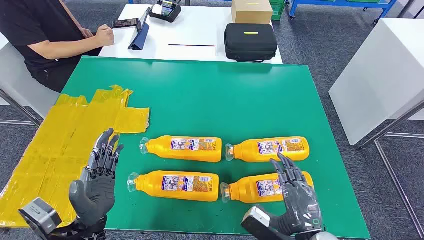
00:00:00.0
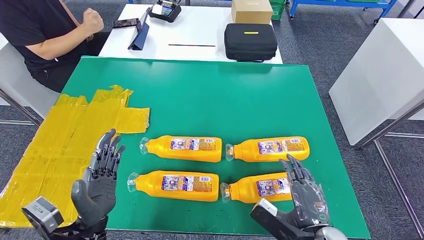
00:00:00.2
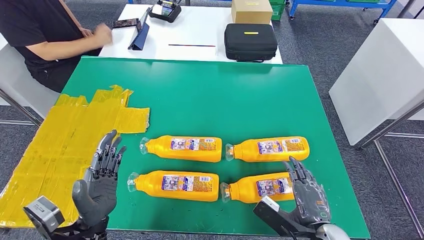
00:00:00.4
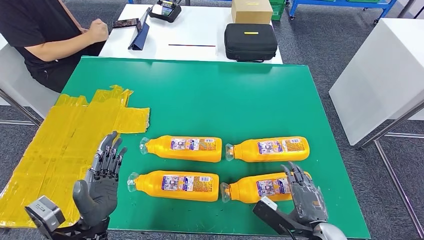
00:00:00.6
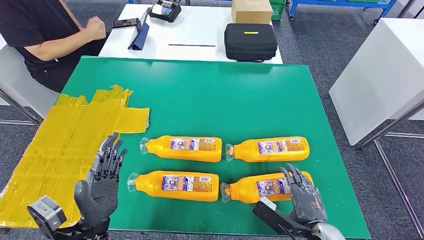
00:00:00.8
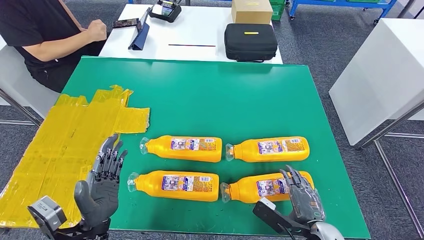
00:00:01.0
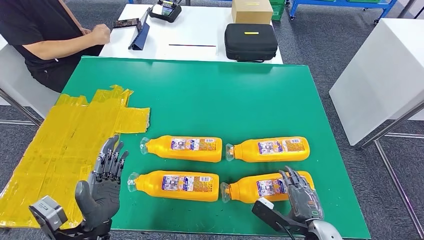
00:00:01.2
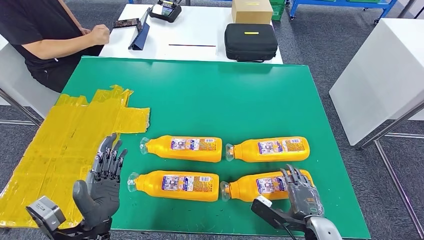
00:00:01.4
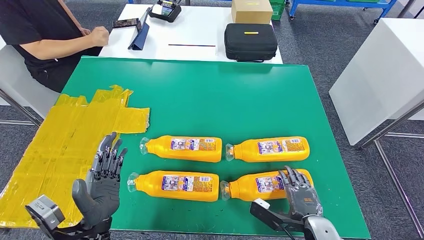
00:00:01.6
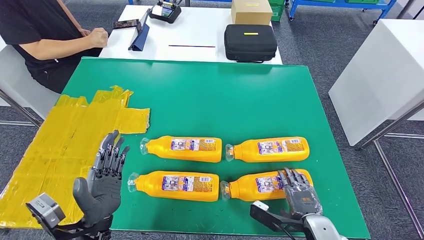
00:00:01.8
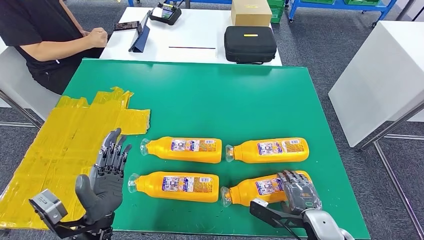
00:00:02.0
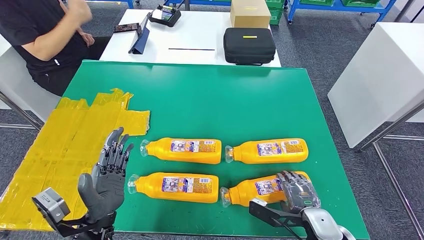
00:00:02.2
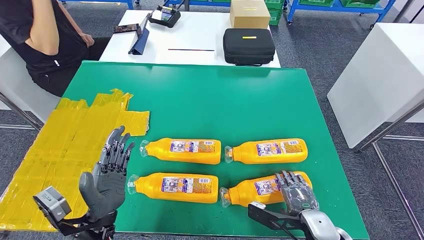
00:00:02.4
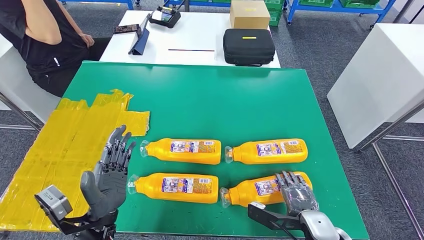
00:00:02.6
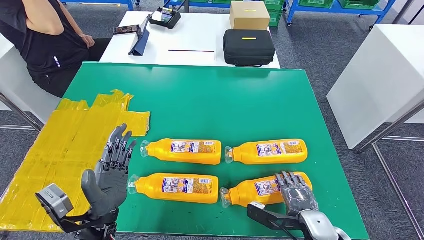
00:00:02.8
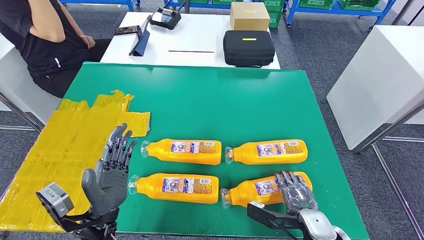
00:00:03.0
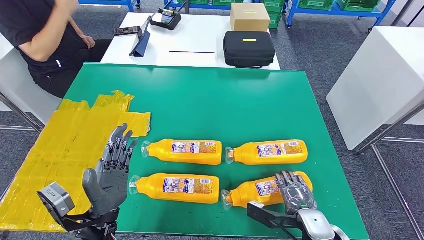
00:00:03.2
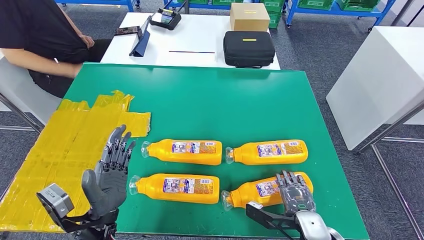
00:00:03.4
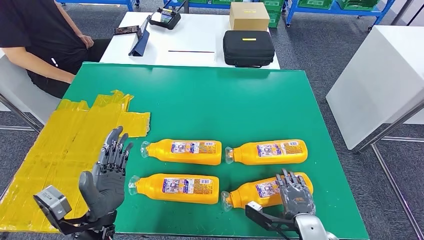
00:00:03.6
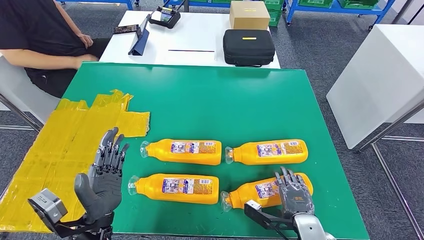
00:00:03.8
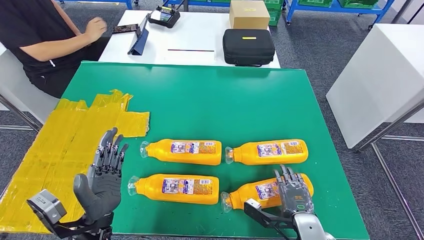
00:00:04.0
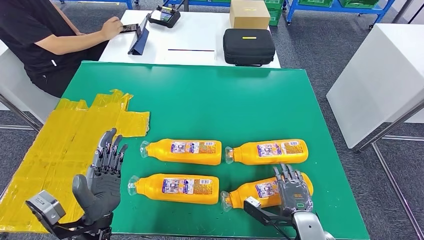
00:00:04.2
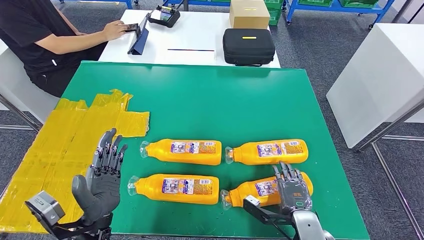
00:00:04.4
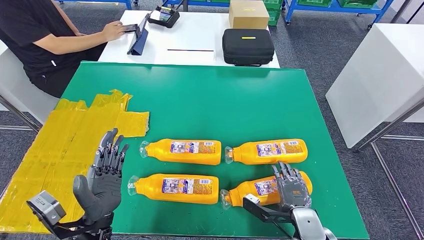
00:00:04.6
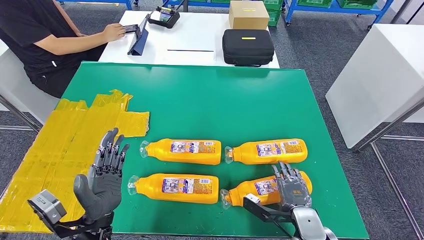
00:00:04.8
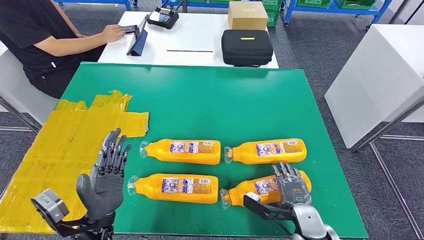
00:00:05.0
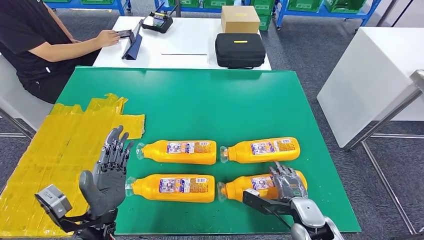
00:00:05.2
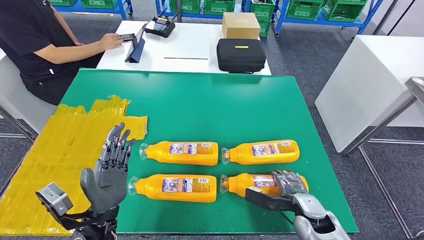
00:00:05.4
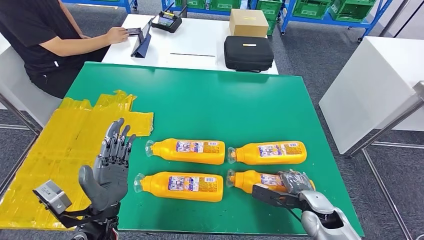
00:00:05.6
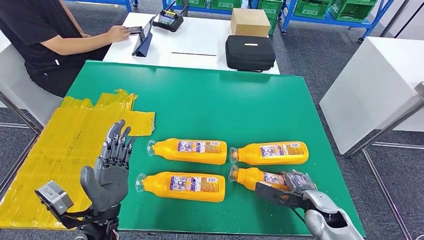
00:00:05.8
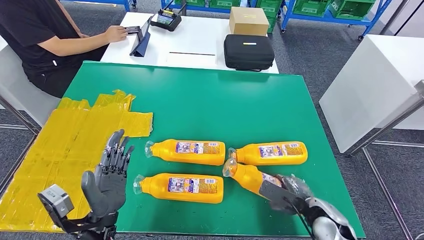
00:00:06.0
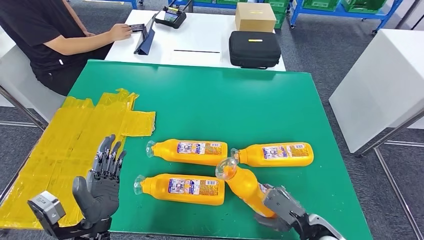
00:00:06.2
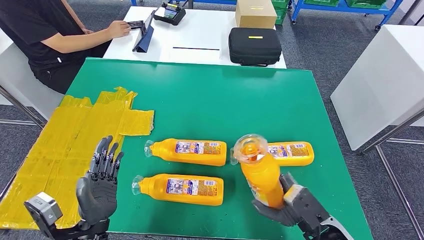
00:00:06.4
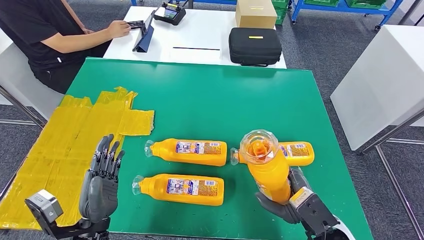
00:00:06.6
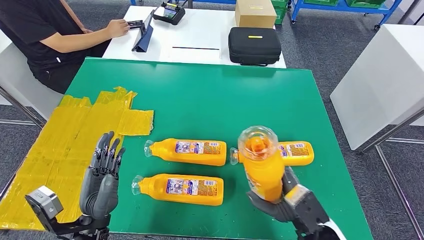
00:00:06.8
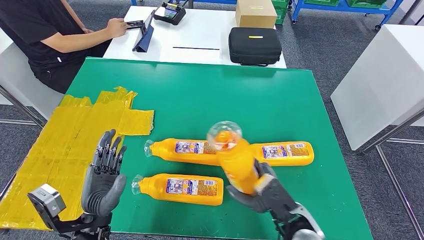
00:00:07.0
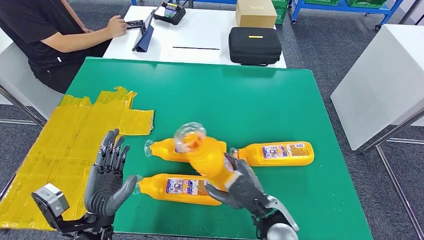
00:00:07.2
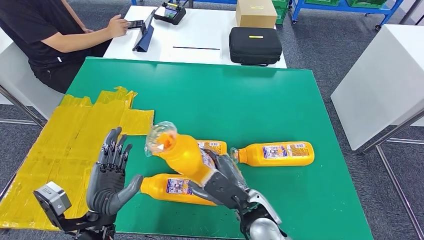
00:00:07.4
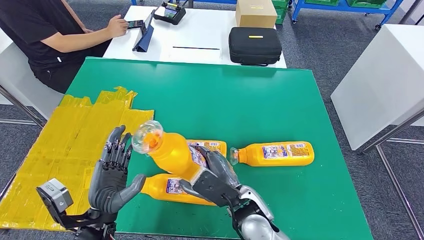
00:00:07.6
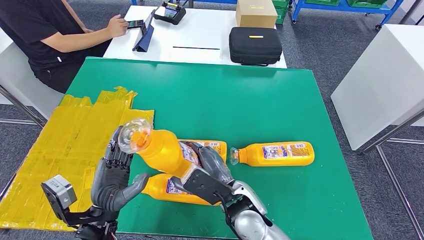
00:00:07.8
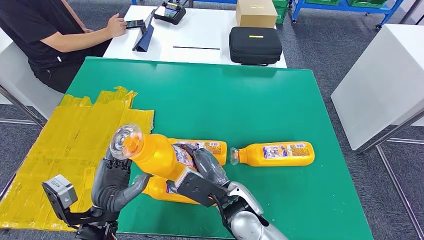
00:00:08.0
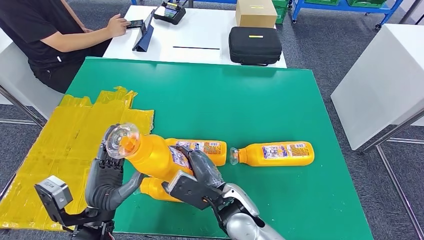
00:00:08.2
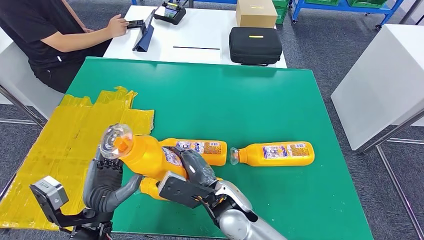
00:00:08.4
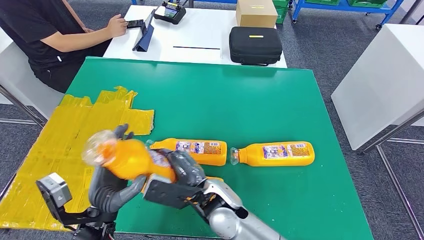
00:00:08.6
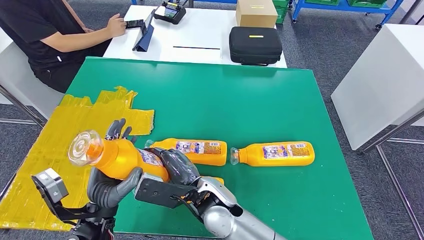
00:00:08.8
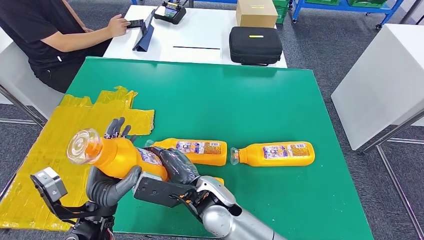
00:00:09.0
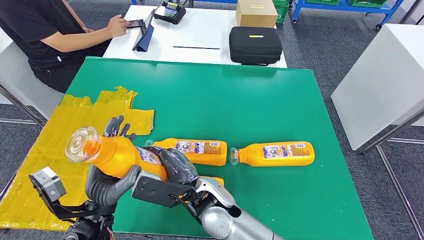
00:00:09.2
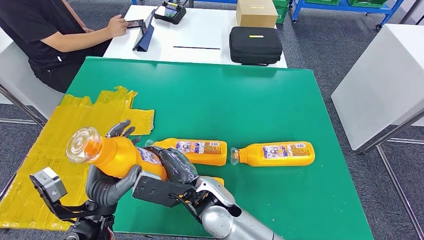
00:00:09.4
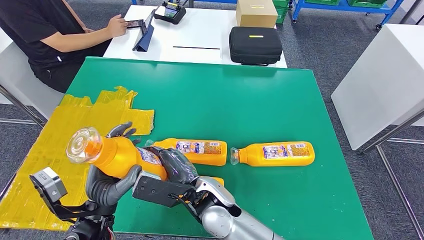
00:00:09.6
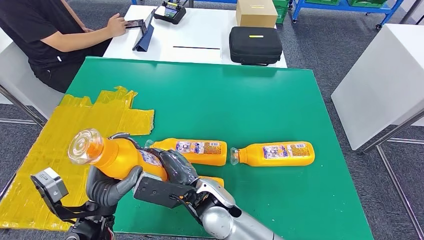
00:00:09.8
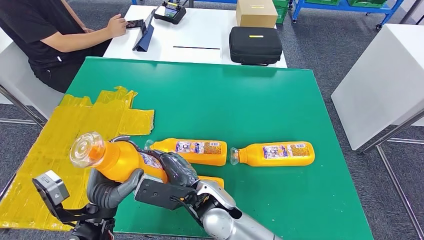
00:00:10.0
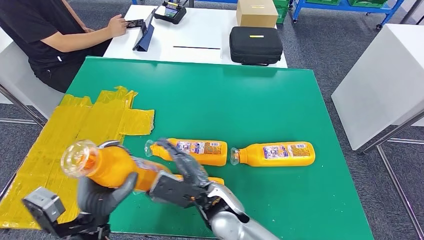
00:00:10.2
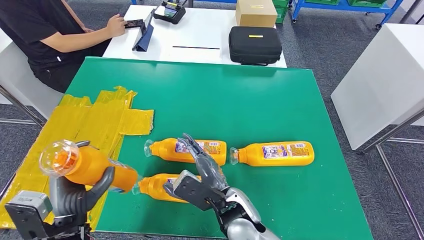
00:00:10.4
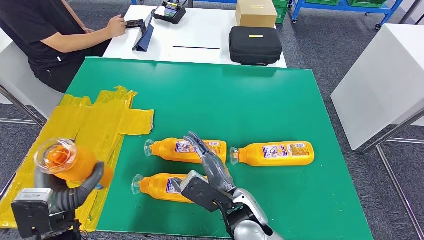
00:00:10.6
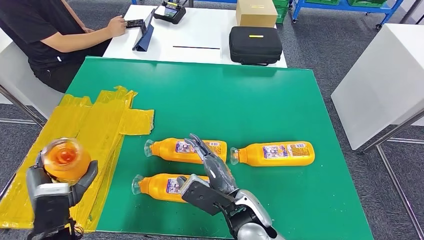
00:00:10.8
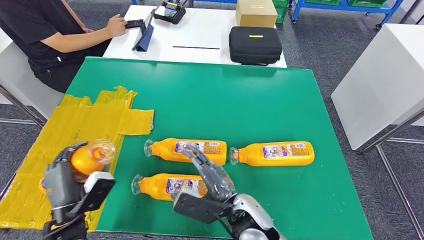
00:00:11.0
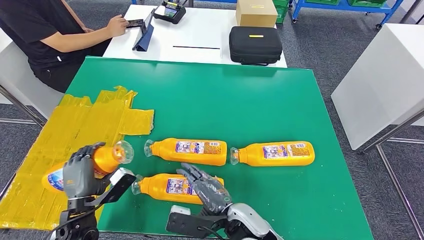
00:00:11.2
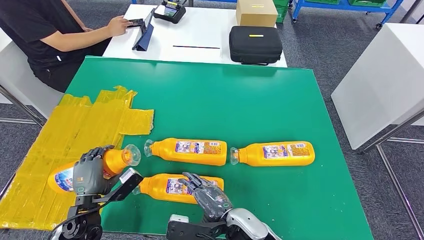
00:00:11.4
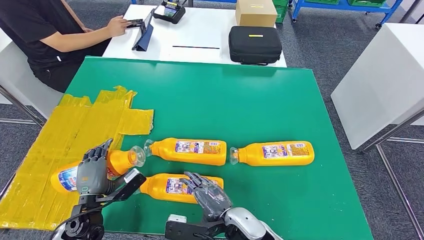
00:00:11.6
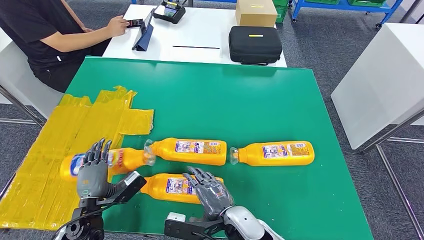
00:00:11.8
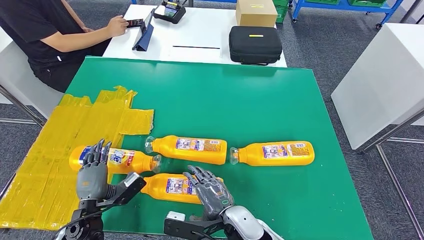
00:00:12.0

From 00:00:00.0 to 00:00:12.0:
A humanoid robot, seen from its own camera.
Step, from 00:00:00.0 to 00:00:06.6: Take the fast-moving consumer goods bottle from the table.
From 00:00:03.0 to 00:00:04.4: The hands move only a little.
From 00:00:07.6 to 00:00:09.0: The right hand heads to the left, covering about 10 cm.
From 00:00:09.0 to 00:00:10.4: The right hand shifts about 5 cm to the right, while the left hand changes place by some 5 cm.
From 00:00:10.4 to 00:00:12.0: The left hand is displaced downward by roughly 10 cm.

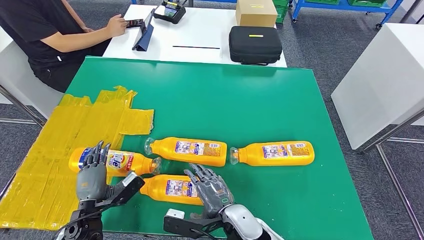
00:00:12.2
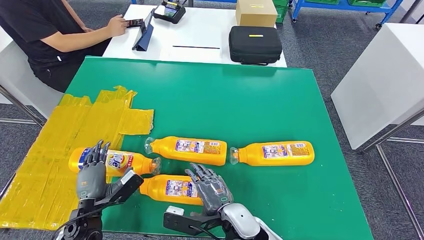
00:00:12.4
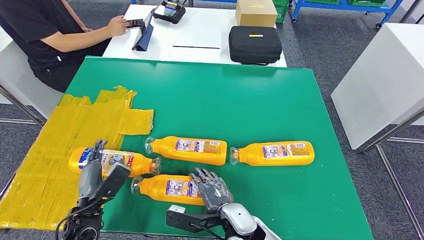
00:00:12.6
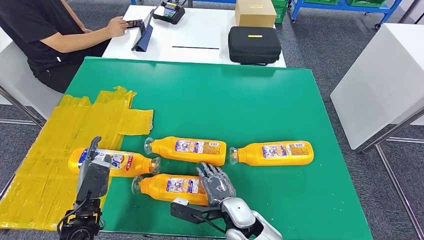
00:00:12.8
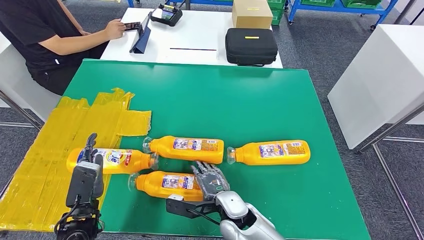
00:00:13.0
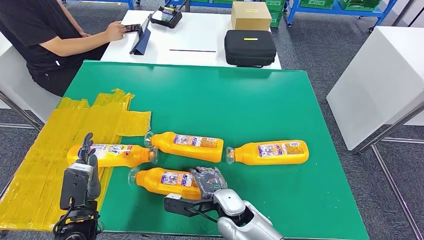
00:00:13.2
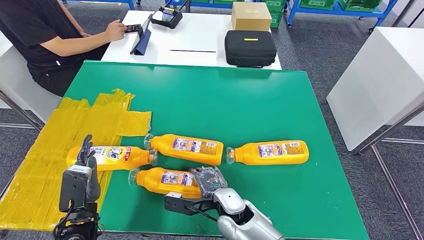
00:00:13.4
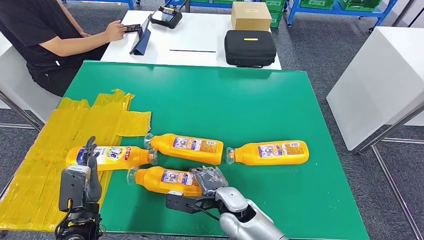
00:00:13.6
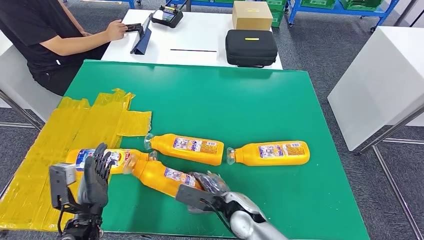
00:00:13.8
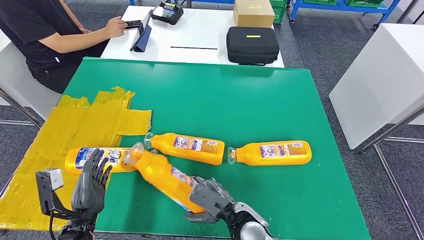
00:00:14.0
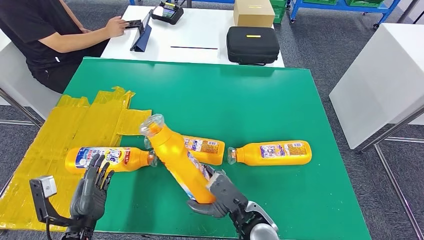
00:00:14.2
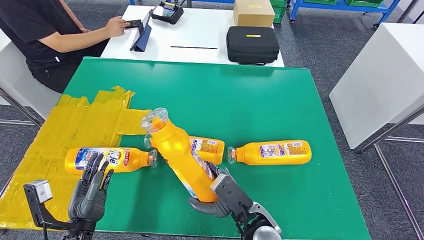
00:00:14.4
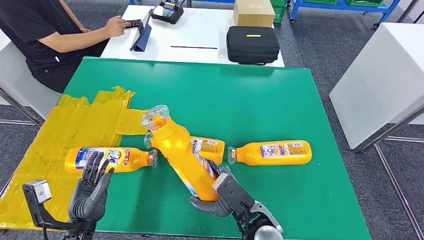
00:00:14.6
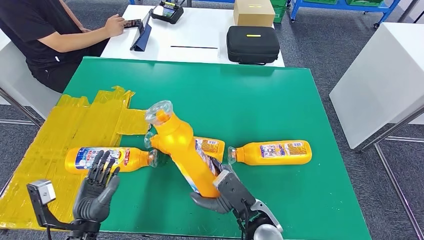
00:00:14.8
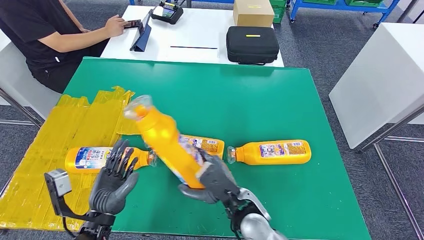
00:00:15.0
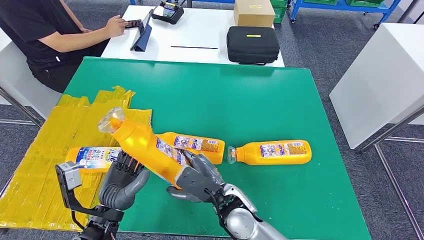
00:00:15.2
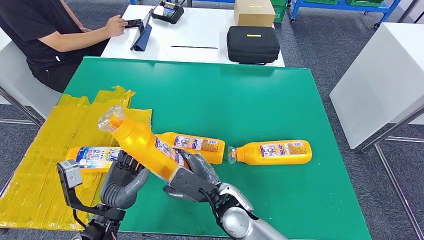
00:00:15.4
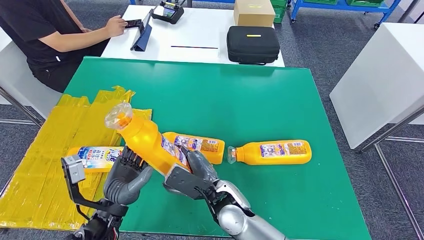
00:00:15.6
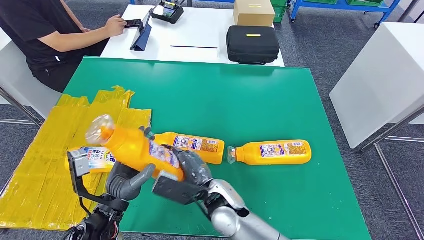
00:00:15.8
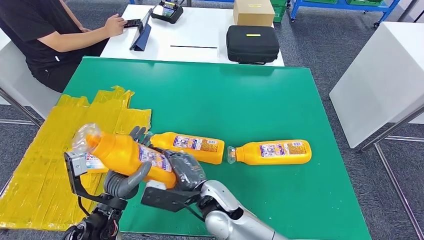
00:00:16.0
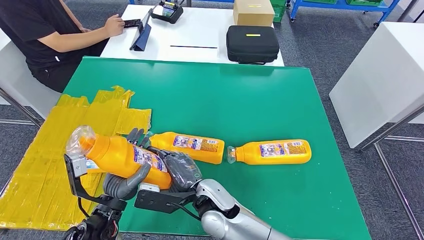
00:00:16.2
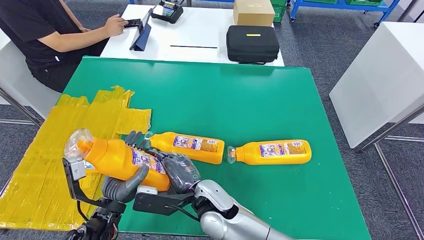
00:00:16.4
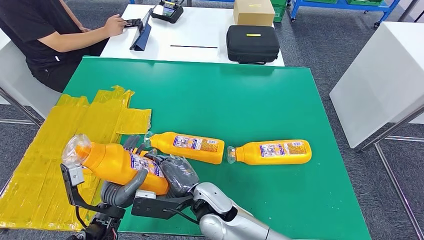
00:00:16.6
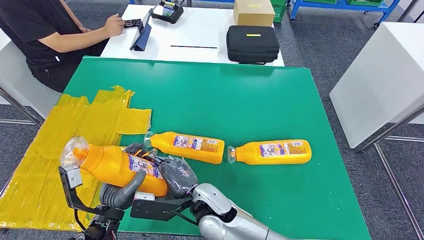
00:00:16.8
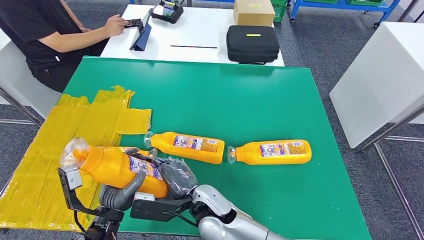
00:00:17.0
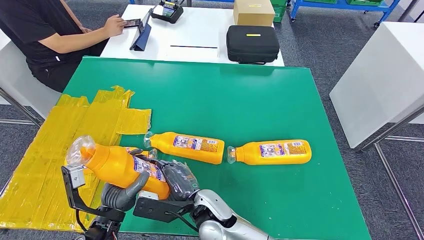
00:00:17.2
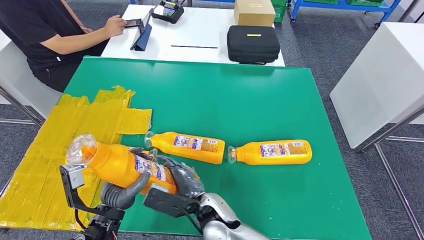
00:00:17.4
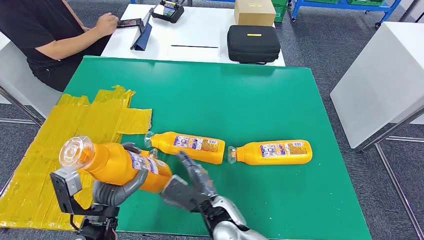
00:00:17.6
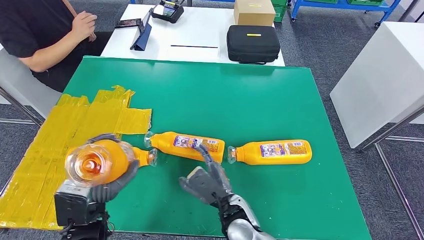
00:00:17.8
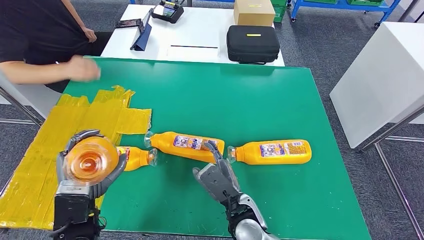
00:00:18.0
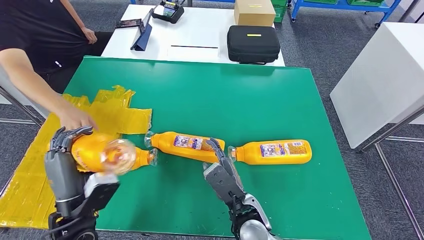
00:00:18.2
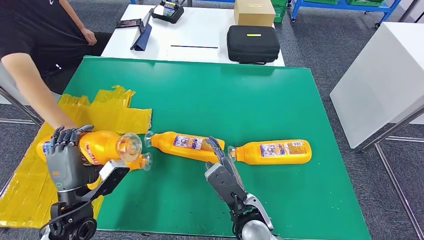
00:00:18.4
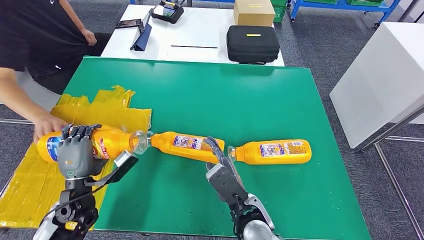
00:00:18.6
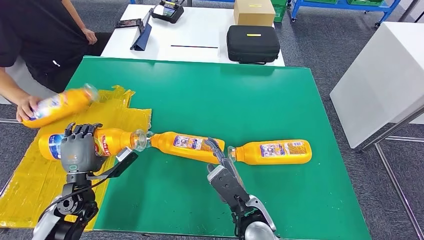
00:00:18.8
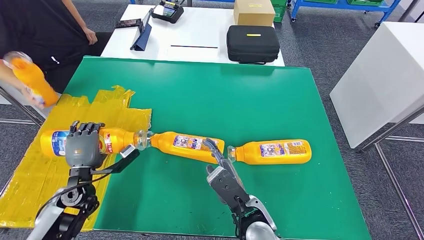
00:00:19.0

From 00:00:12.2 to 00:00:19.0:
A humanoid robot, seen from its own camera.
Step, from 00:00:12.4 to 00:00:15.8: Pick up the fast-moving consumer goods bottle from the table.
From 00:00:15.0 to 00:00:16.2: The right hand heads to the left, covering roughly 10 cm.
From 00:00:16.2 to 00:00:17.6: The right hand ends up about 5 cm from where it was.
From 00:00:17.6 to 00:00:19.0: The left hand is displaced to the left, forward and downward by some 15 cm; the right hand shifts approximately 5 cm to the right.
